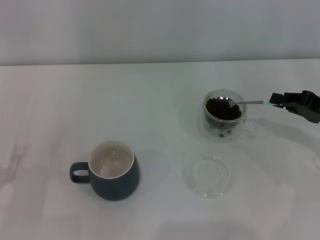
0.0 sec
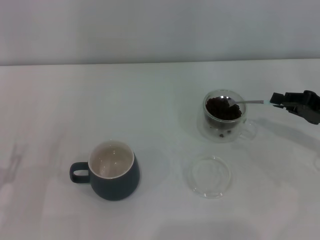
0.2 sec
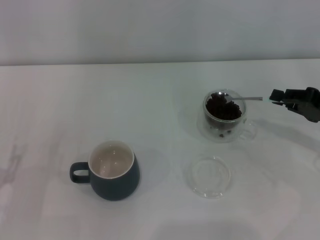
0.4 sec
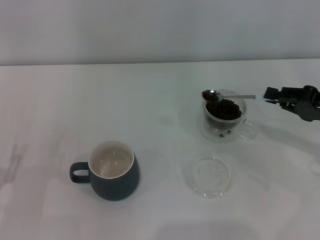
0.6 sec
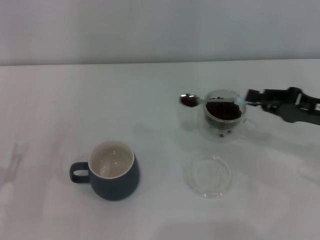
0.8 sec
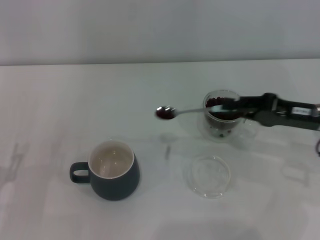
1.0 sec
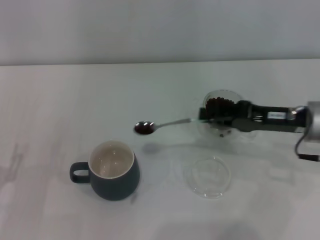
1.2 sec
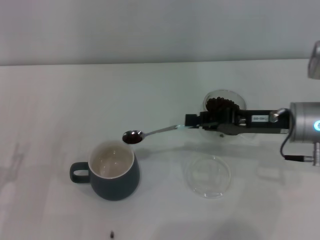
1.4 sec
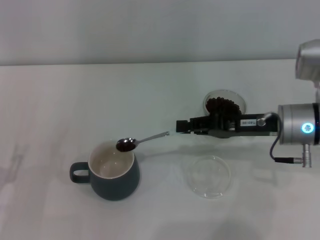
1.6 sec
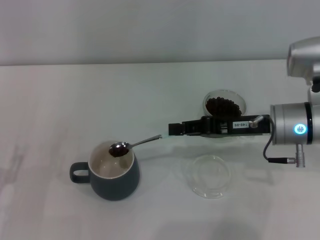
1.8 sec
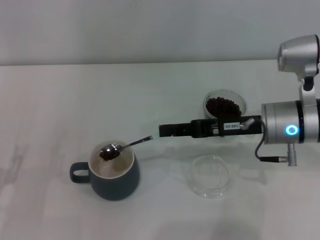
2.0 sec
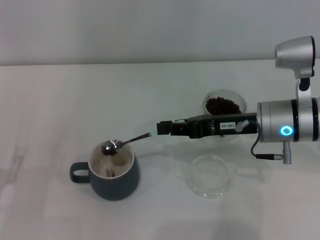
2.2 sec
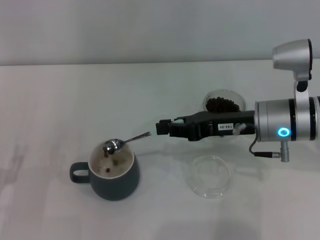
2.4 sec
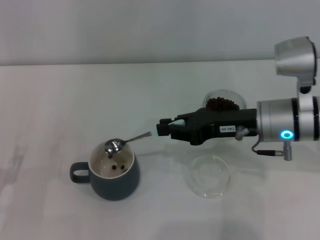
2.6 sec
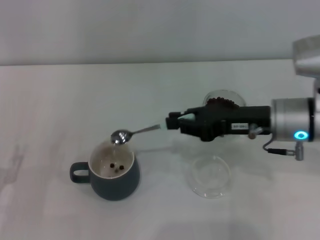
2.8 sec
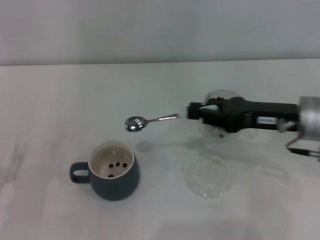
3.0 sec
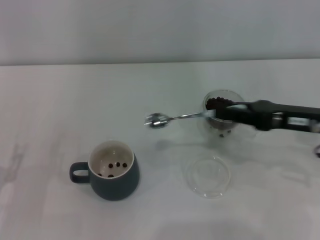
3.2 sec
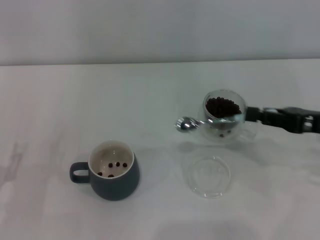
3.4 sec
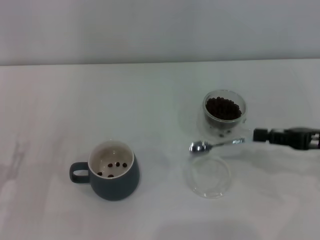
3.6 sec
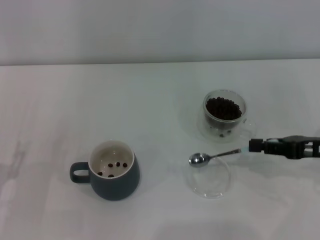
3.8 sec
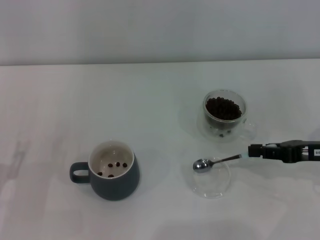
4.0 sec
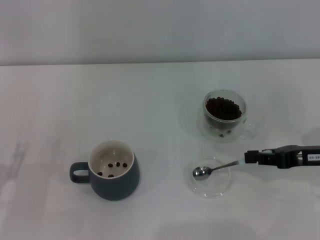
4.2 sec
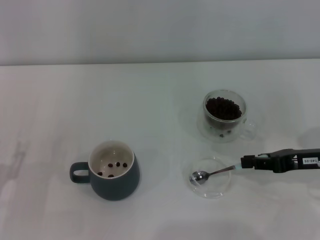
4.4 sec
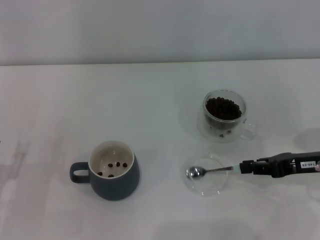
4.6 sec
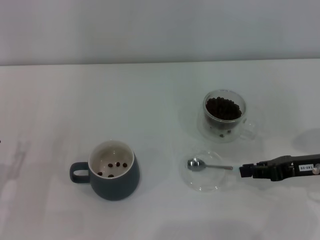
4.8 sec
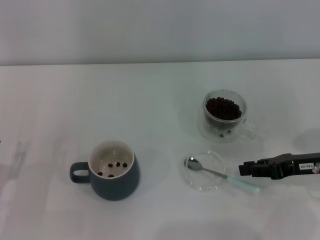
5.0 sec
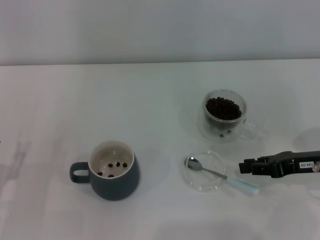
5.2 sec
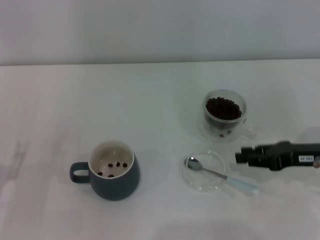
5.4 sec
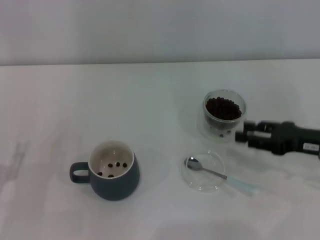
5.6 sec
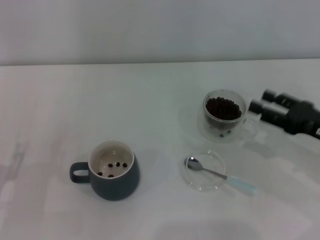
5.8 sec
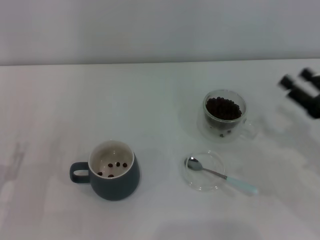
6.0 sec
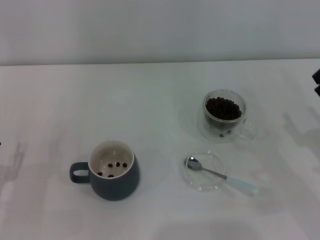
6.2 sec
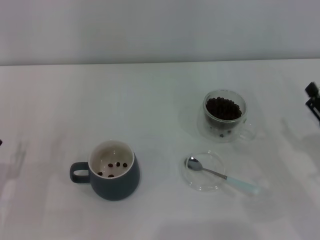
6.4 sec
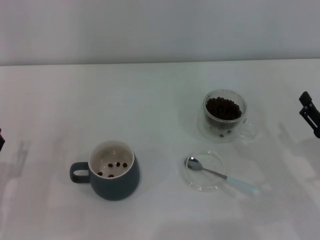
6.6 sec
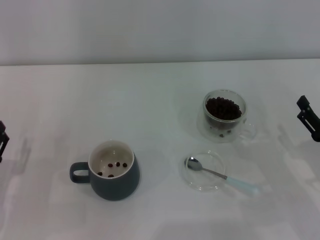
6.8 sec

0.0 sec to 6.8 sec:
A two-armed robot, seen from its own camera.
Task of the whole recording: Use a blue spoon to take out the coffee beans from the glass and pour them into the gray cup.
Step, 0.0 sec to 2.8 sec: Scoop a spoonful of beans into the cup with the right gripper.
Step, 3.2 sec to 5.2 sec: Place the spoon back in its original place with the right gripper.
0.0 sec to 1.4 sec: The right gripper shifts approximately 10 cm to the left.
2.8 sec to 4.0 sec: The right gripper heads to the right, covering about 10 cm.
4.0 sec to 5.4 sec: The grippers move only a little.
5.4 sec to 6.8 sec: The right gripper travels backward and downward by roughly 10 cm, and opens.

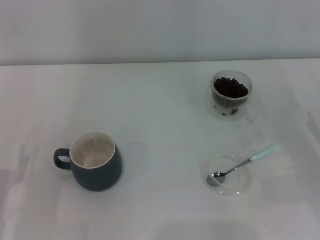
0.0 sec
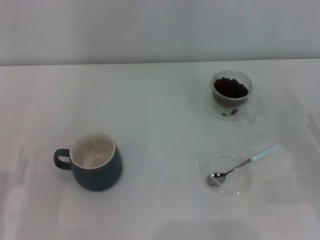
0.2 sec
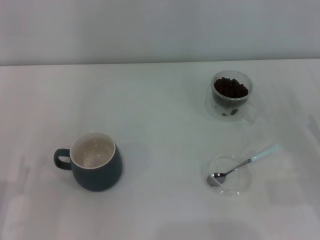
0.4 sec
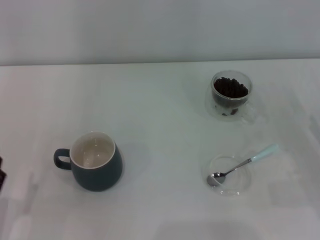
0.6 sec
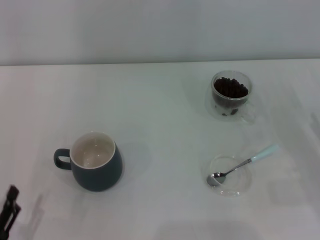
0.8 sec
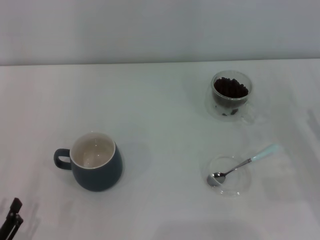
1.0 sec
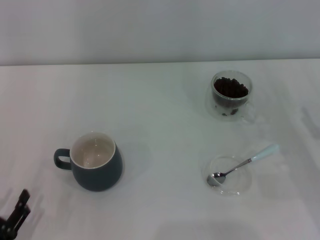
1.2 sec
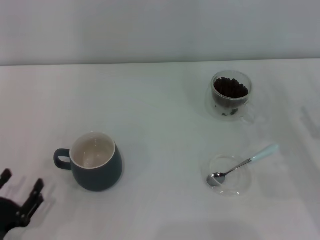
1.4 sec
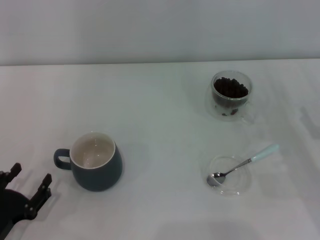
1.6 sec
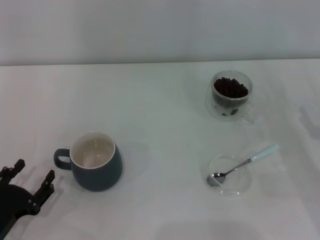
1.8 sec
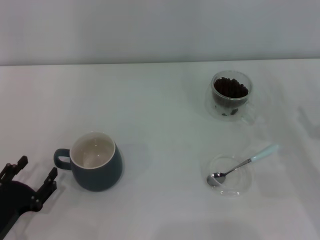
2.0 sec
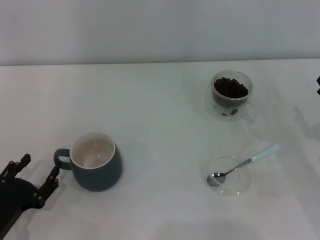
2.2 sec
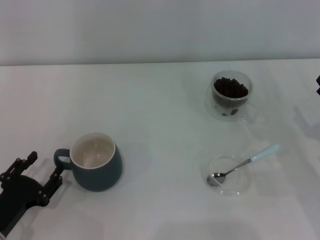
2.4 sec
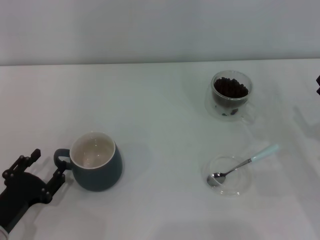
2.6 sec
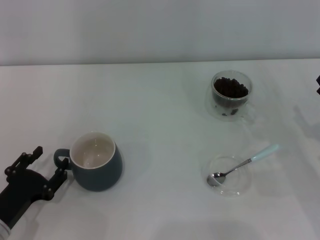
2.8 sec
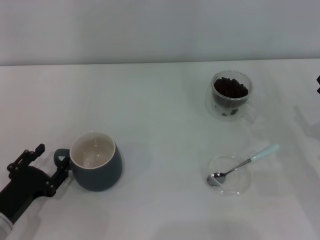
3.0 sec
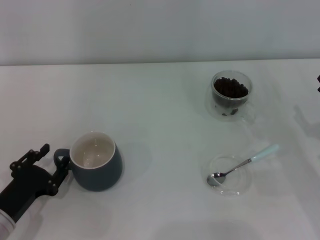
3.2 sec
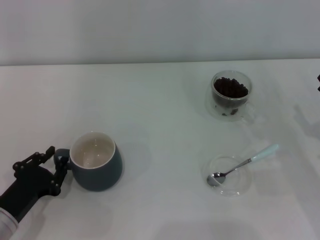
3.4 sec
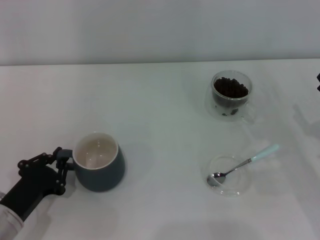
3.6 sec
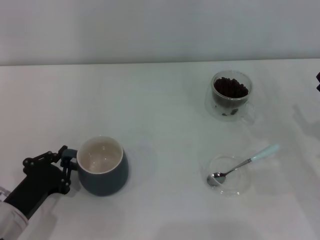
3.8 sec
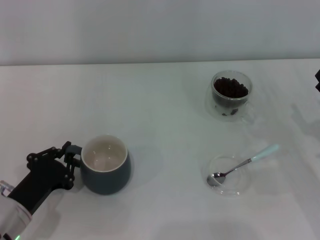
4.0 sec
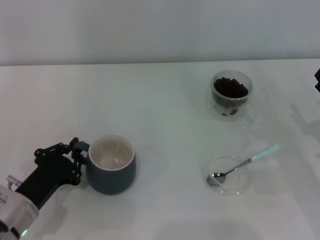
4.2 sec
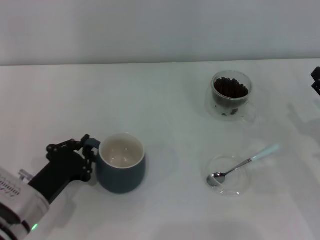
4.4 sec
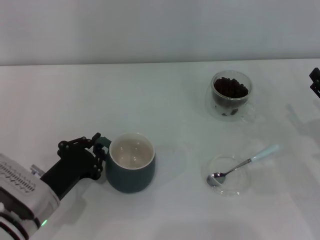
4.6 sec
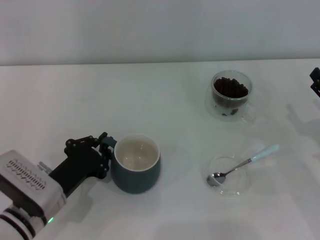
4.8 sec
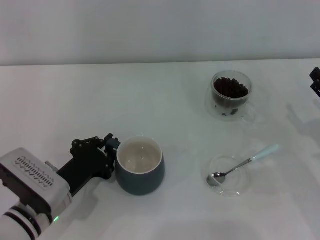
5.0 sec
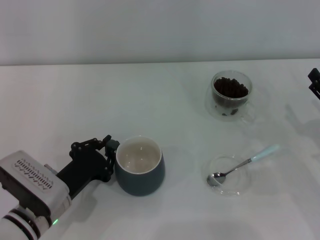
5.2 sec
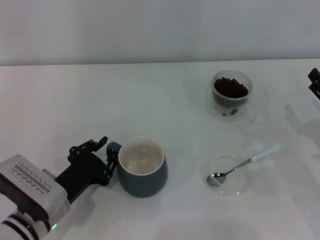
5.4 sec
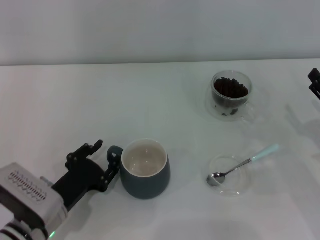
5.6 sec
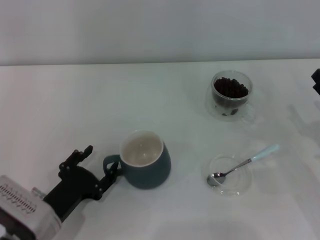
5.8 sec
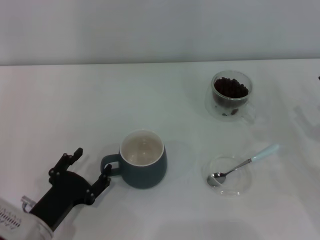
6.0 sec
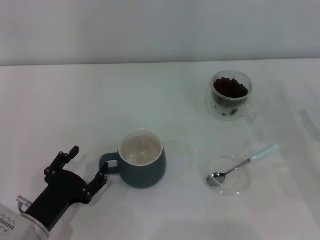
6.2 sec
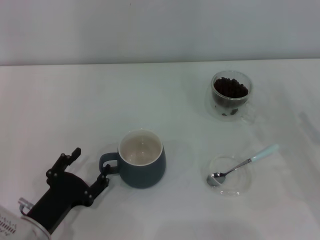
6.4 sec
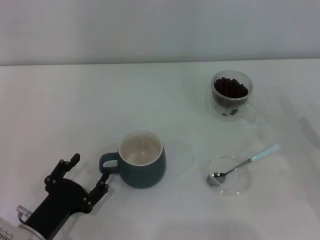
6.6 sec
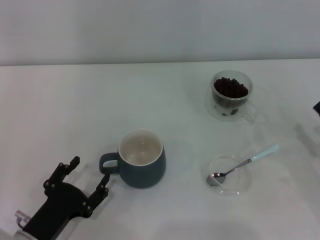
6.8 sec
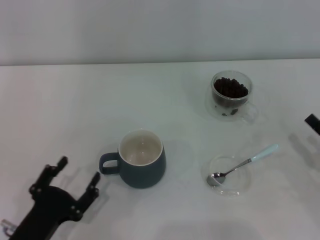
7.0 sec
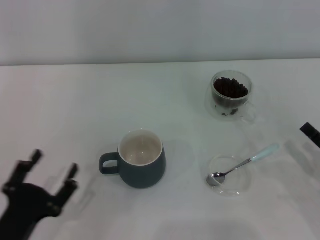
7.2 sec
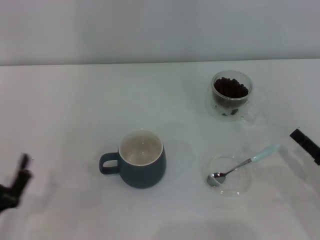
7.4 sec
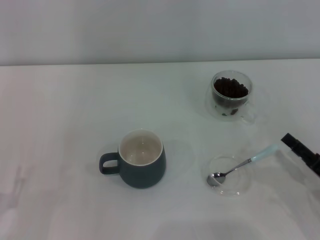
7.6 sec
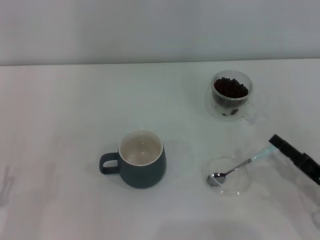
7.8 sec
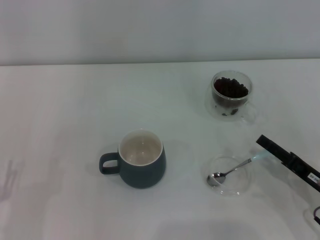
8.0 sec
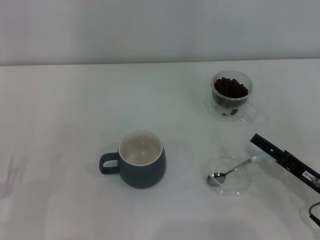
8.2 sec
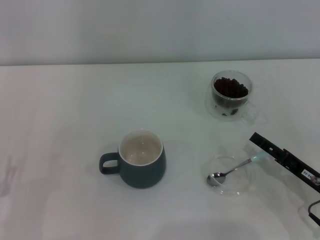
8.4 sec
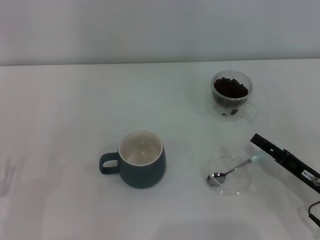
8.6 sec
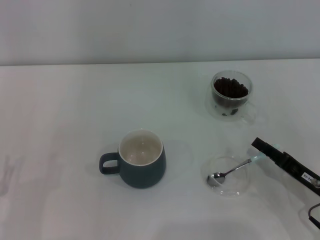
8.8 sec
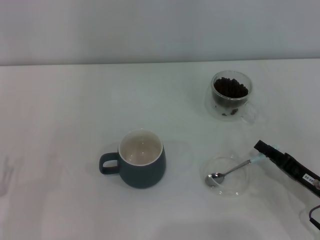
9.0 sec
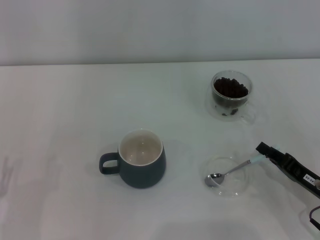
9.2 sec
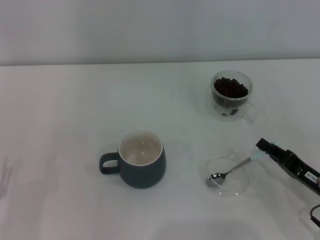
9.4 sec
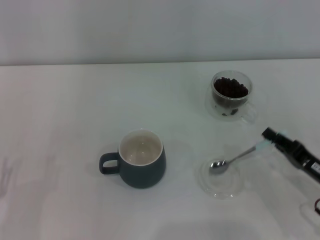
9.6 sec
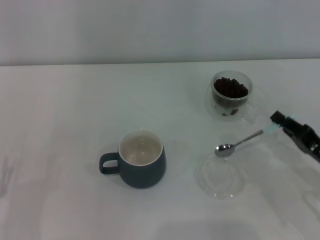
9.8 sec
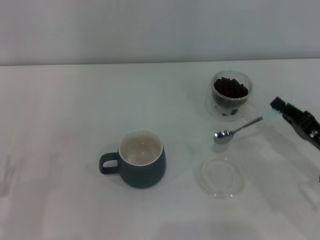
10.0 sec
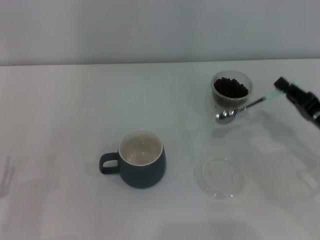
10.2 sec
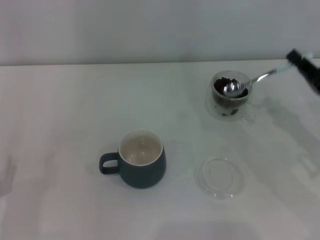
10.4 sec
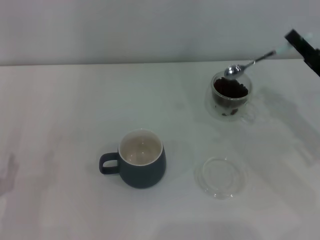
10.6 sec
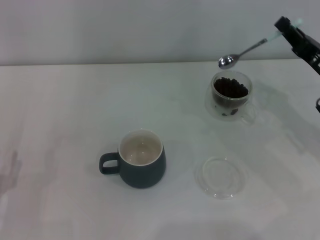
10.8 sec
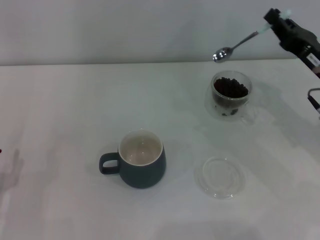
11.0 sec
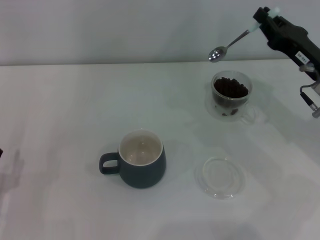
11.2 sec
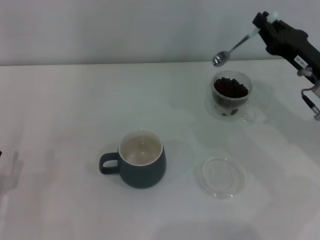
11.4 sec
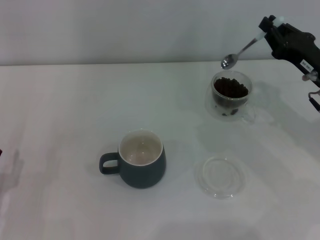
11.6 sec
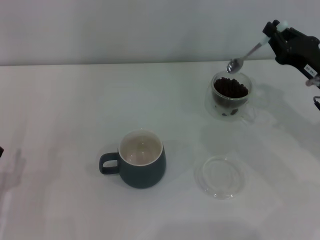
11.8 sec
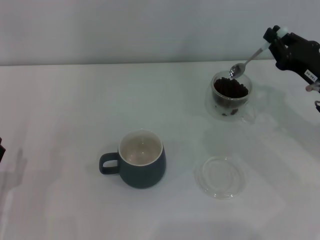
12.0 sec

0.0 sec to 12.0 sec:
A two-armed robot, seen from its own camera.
Task of the whole recording: Use a blue spoon to take out the coffee beans from the glass and pour them into the gray cup.
Step, 0.0 sec to 6.8 sec: Move the cup to the center of view with the left gripper.
Step, 7.0 sec to 9.8 sec: Pick up the spoon with the right gripper.
0.0 sec to 1.6 sec: The left gripper moves roughly 10 cm backward and comes back.
1.6 sec to 3.0 sec: The grippers move only a little.
3.0 sec to 4.4 sec: The left gripper travels to the right by about 5 cm, and closes its fingers.
4.4 sec to 6.0 sec: The left gripper opens its fingers.
6.0 sec to 7.6 sec: The right gripper shifts approximately 5 cm backward. The left gripper goes roughly 10 cm to the left and backward.
7.6 sec to 9.0 sec: The right gripper closes up.
9.0 sec to 10.4 sec: The right gripper goes roughly 10 cm upward and forward, and closes up.
10.4 sec to 12.0 sec: The right gripper is displaced forward by about 5 cm.

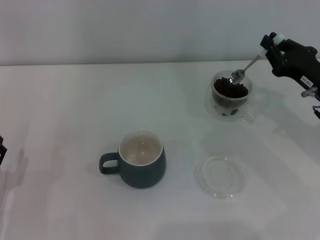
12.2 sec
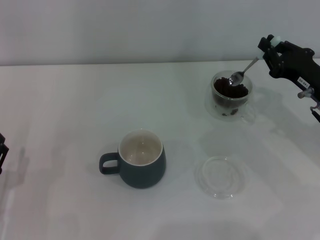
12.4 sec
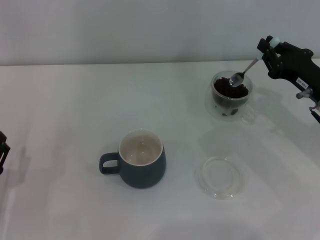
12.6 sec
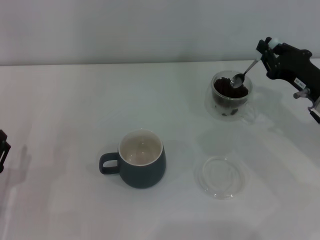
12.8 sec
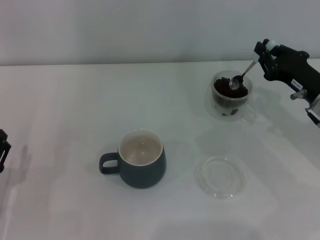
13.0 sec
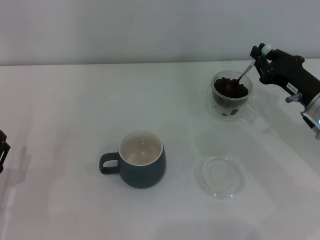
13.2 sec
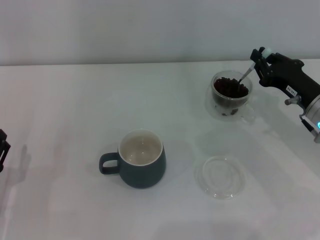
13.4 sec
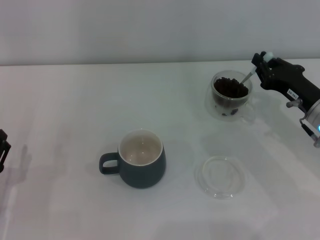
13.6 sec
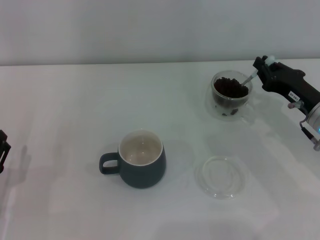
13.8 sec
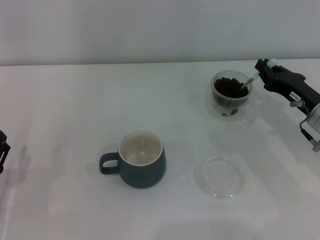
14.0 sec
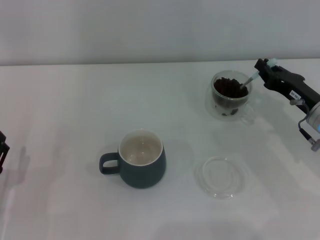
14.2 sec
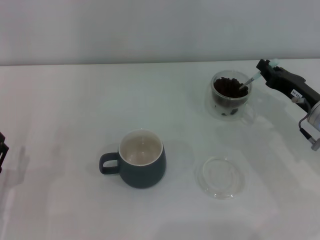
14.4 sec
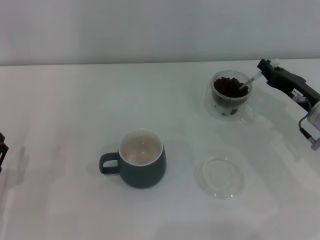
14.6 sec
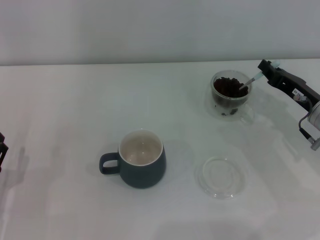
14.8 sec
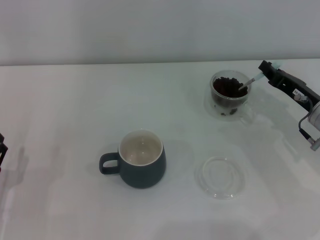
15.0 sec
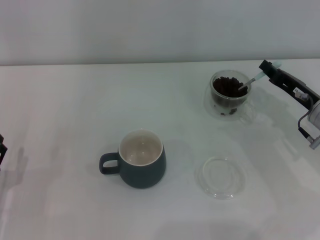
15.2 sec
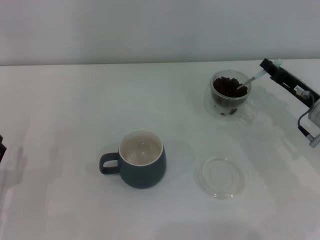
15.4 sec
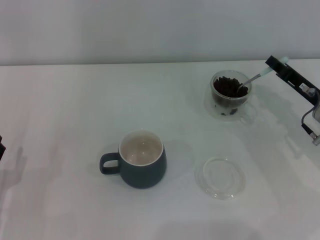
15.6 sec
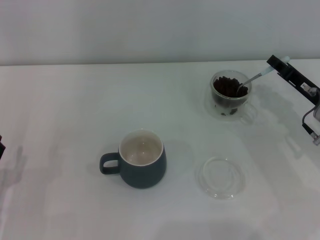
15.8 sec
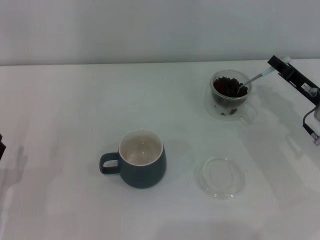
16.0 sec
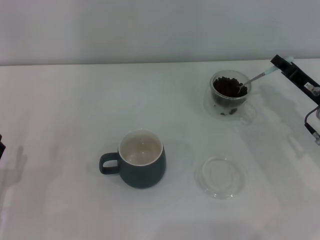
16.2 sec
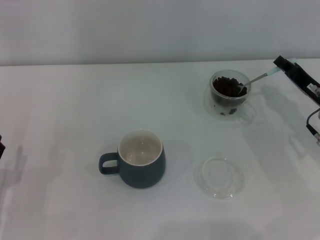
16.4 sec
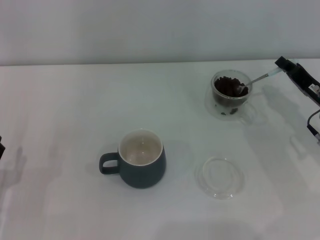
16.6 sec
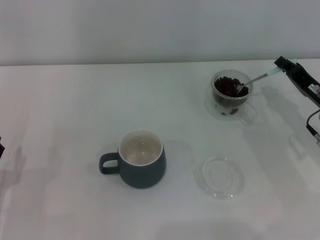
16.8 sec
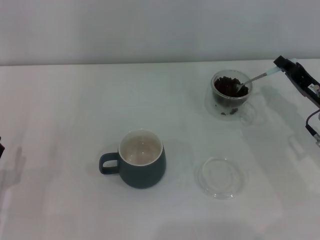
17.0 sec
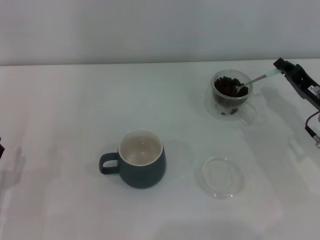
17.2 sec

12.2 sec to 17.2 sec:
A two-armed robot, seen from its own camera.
Task of the whole recording: Use a blue spoon to take out the coffee beans from the glass and pour them into the gray cup.
12.2 sec to 13.8 sec: The grippers stay close to where they were, moving slightly.
15.6 sec to 17.2 sec: There are only small adjustments of the grippers.
